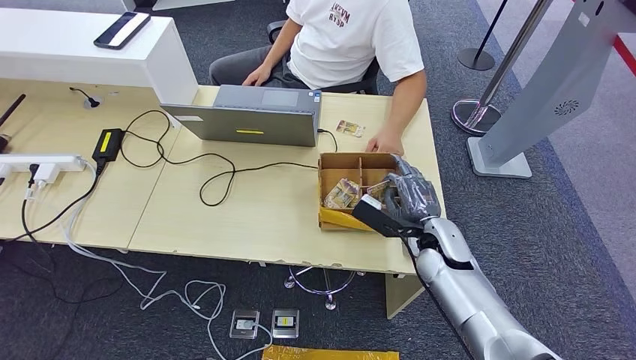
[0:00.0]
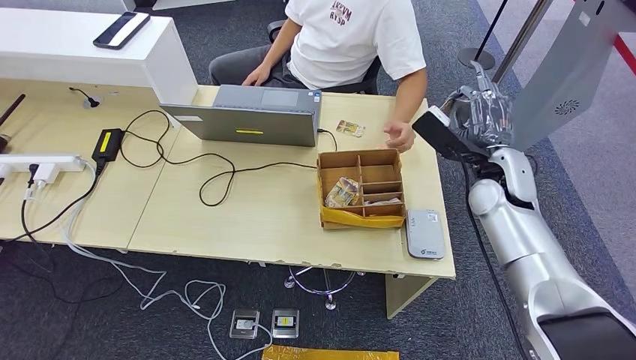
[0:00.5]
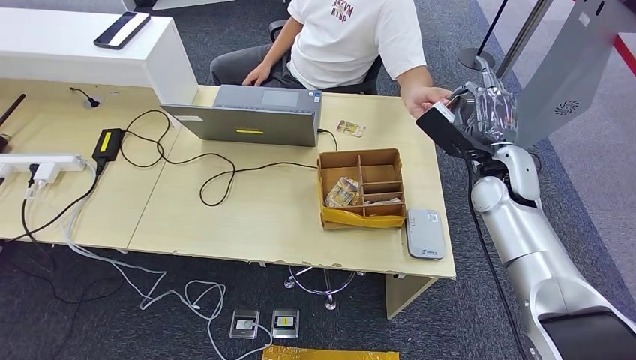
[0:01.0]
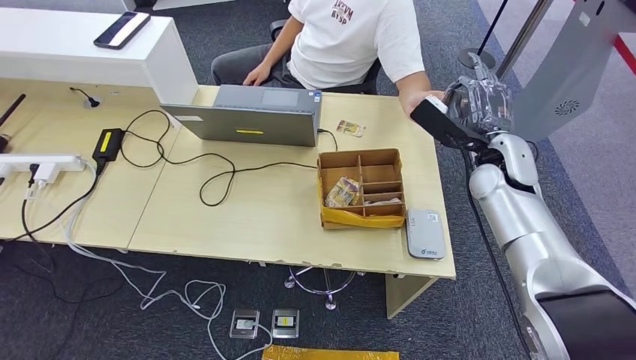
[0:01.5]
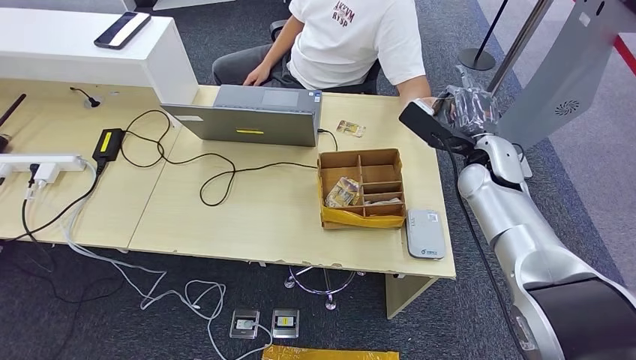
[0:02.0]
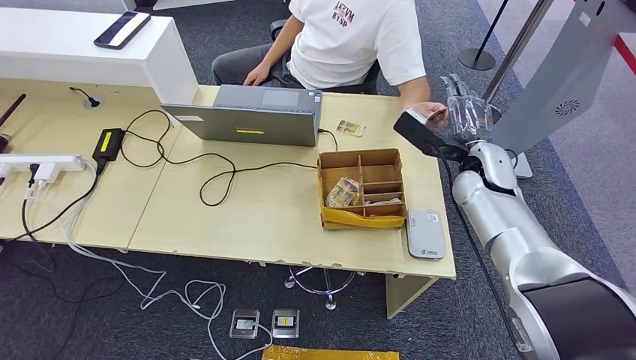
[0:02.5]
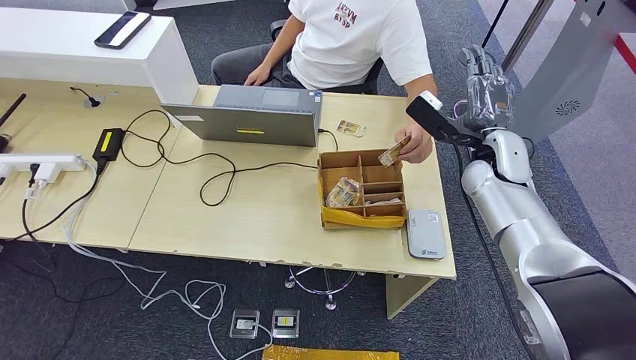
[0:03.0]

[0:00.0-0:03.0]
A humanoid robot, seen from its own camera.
Step, 0:00.5 to 0:03.0: Hand the room key to the person.
0:00.0 to 0:01.5: The right hand travels upward, forward and to the right by roughly 20 cm.
0:01.5 to 0:03.0: The hands move only a little.
